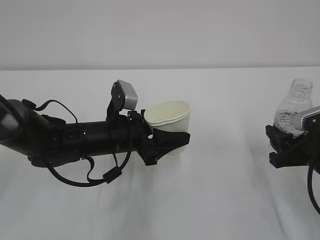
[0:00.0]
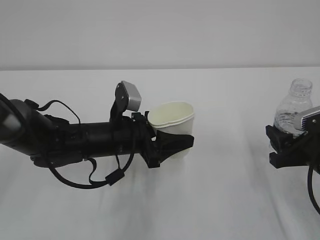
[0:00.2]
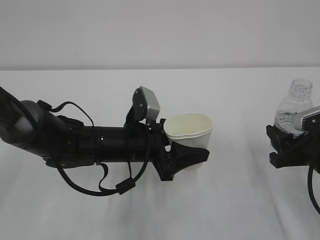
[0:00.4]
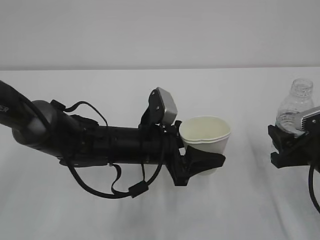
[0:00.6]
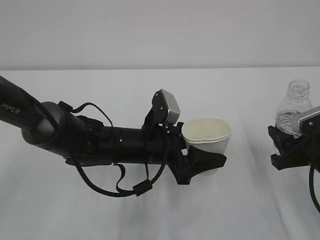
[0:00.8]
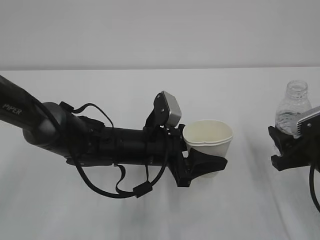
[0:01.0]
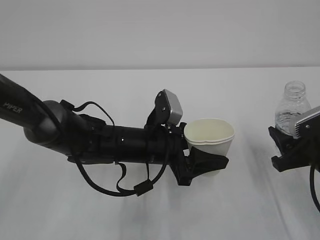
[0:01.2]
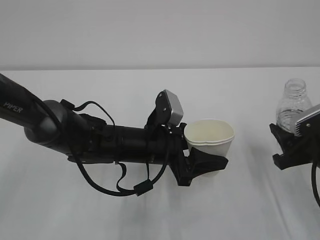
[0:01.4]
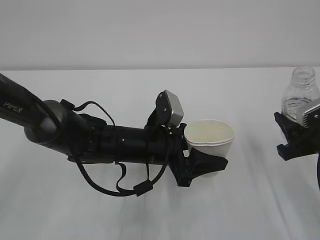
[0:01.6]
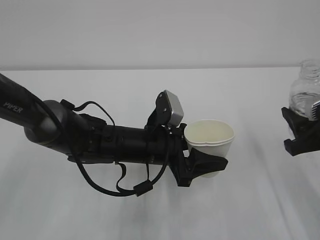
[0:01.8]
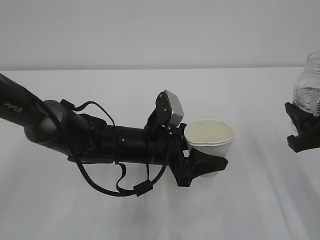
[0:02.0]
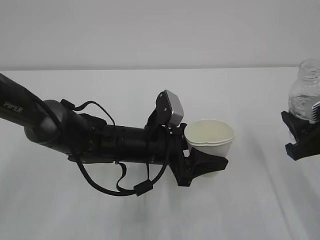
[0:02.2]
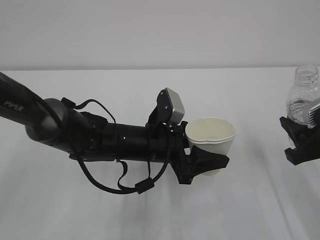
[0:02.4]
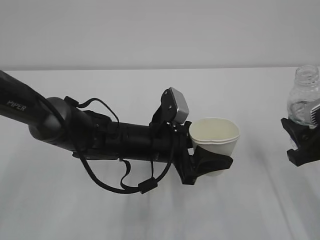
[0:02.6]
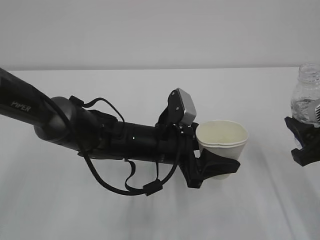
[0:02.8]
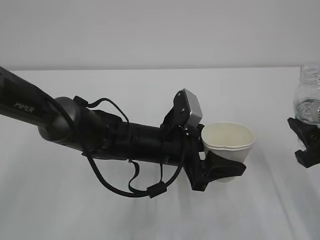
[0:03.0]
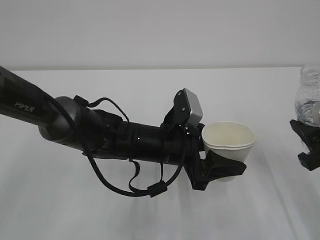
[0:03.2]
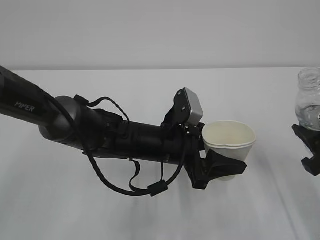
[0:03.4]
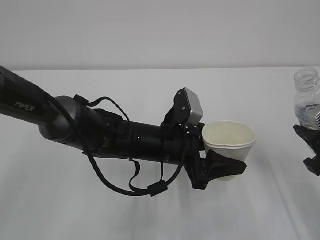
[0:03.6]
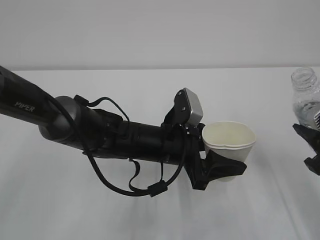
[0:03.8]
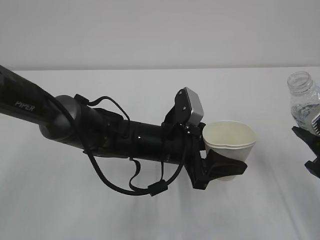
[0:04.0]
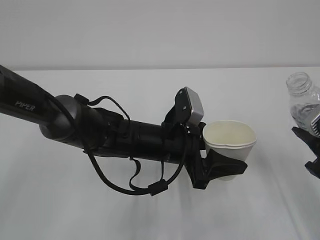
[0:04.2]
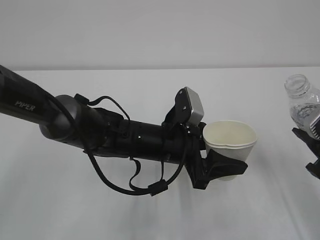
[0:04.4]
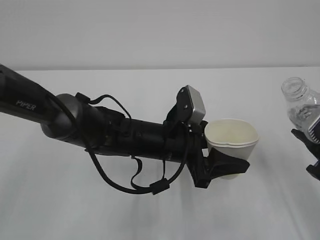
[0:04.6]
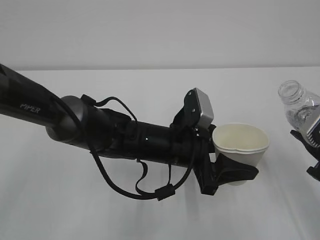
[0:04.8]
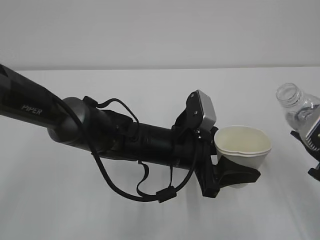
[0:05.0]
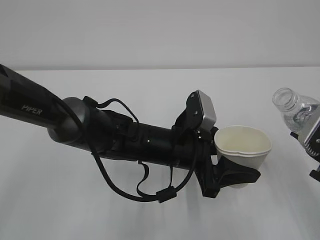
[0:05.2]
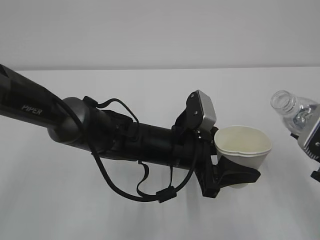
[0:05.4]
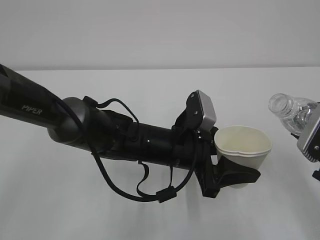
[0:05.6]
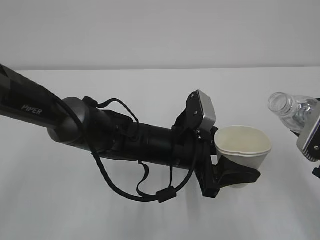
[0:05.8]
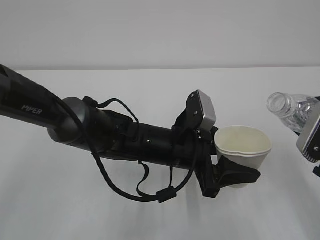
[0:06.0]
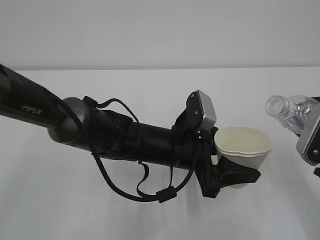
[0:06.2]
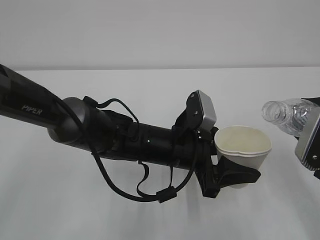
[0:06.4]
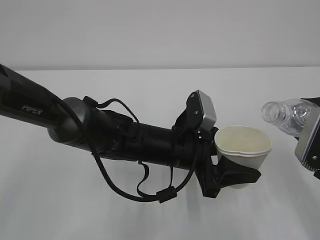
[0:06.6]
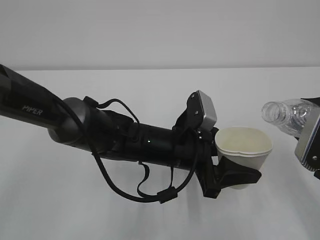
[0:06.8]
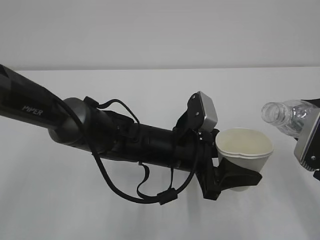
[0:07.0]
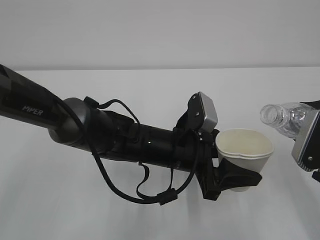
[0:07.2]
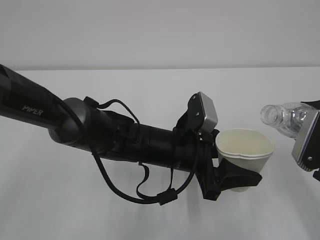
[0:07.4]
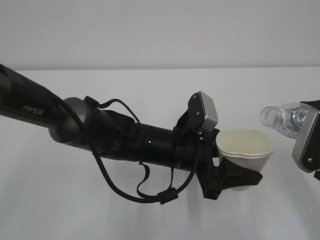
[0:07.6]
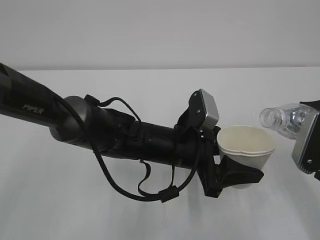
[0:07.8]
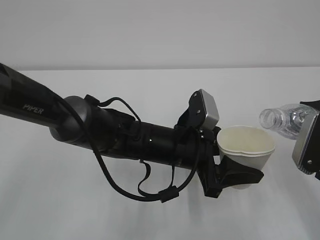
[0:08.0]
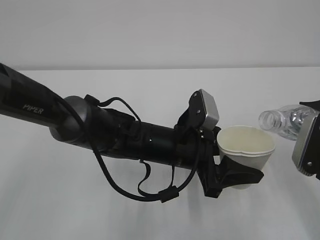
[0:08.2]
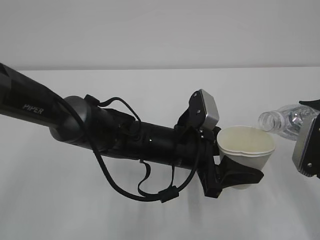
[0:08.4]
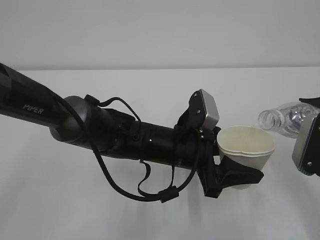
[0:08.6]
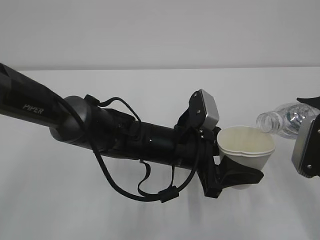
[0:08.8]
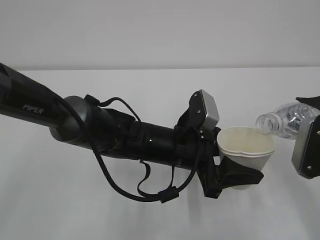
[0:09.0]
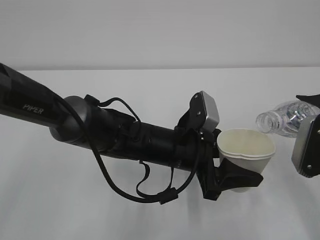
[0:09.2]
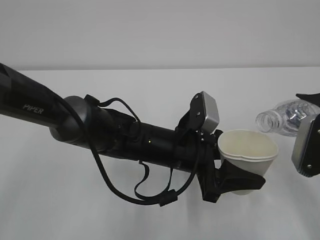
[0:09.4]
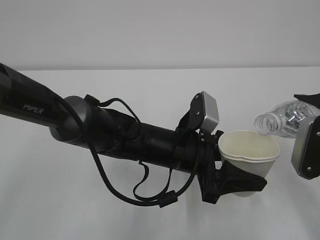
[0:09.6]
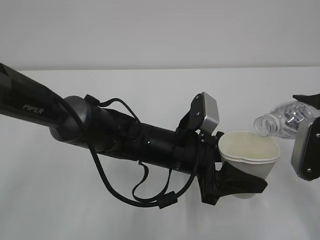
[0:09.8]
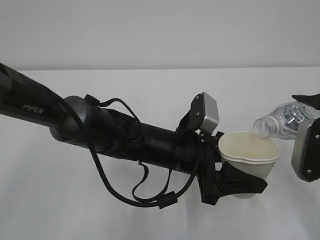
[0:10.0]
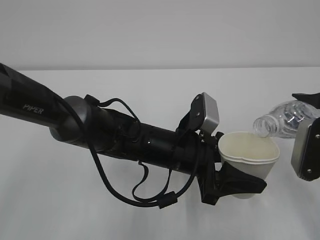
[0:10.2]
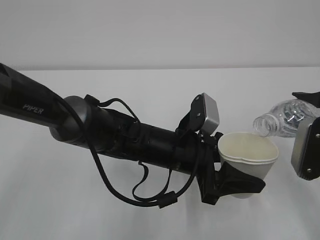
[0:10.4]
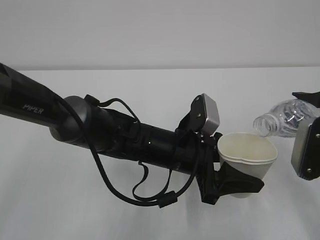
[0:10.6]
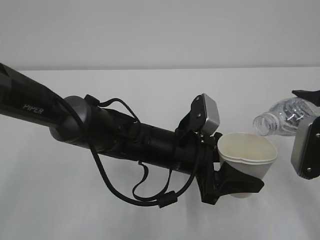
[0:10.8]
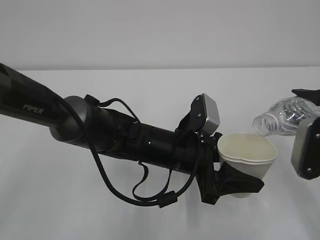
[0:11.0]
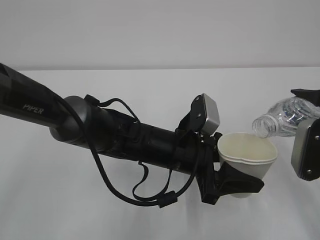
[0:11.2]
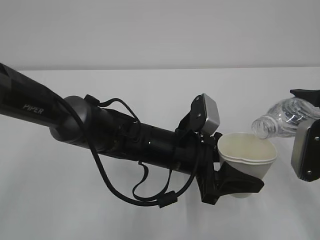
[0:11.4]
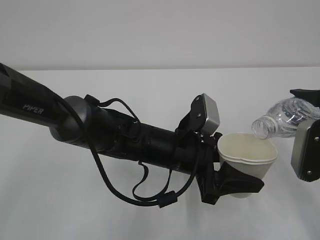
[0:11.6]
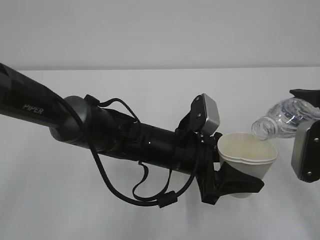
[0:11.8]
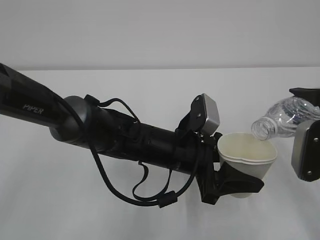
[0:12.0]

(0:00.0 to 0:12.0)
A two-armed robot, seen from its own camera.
0:00.0 - 0:01.6: The left gripper moves to the right, roughly 5 cm.
0:01.6 - 0:03.0: There are only small adjustments of the grippers.
0:03.0 - 0:04.4: The grippers move only a little.
0:06.0 - 0:09.0: The grippers move only a little.
0:09.0 - 0:12.0: The grippers make only small movements.

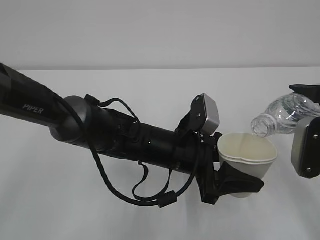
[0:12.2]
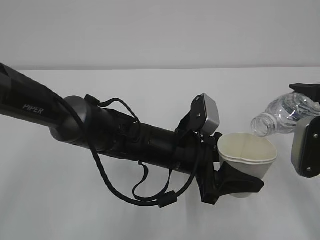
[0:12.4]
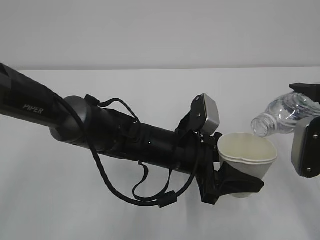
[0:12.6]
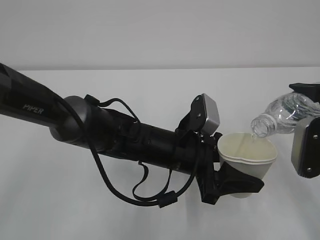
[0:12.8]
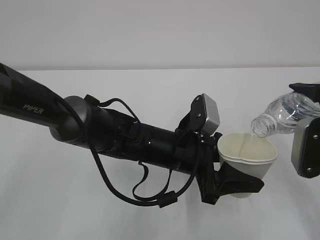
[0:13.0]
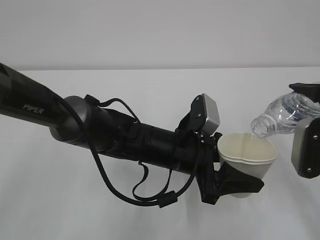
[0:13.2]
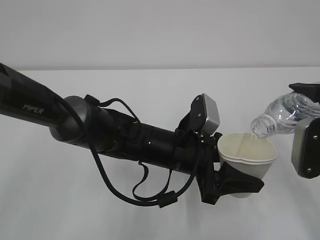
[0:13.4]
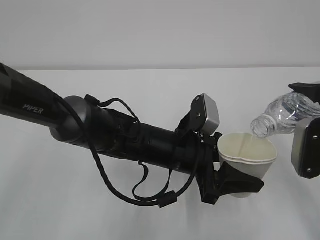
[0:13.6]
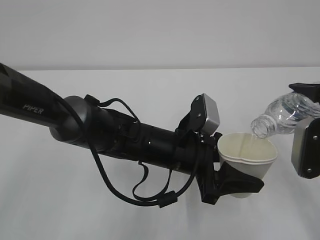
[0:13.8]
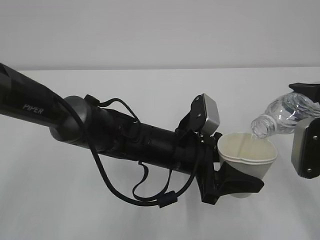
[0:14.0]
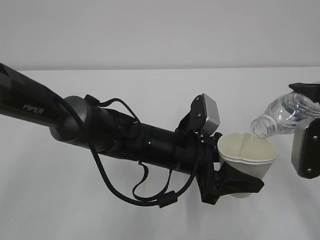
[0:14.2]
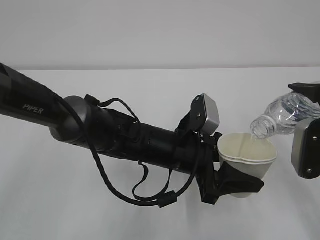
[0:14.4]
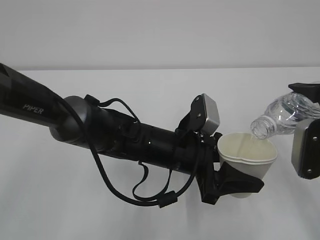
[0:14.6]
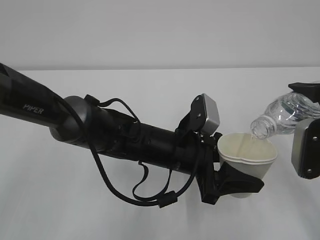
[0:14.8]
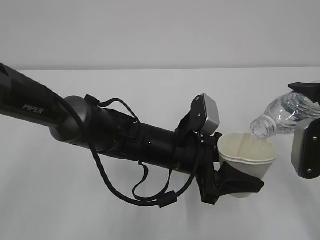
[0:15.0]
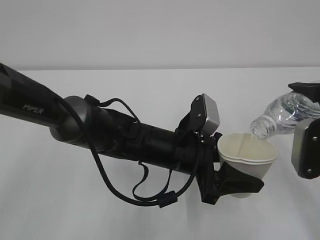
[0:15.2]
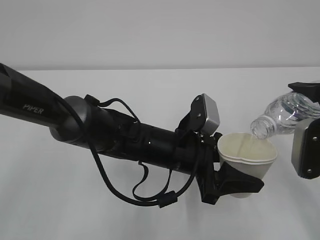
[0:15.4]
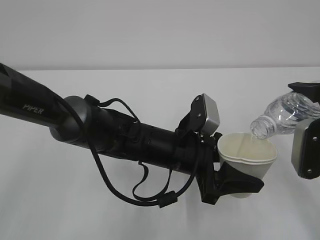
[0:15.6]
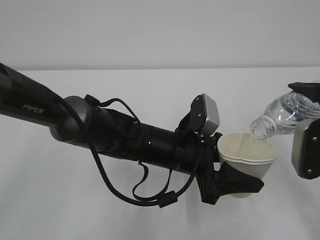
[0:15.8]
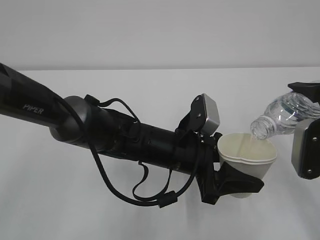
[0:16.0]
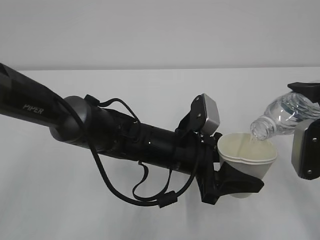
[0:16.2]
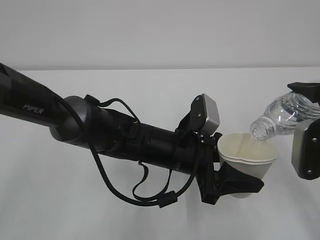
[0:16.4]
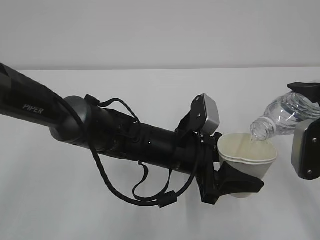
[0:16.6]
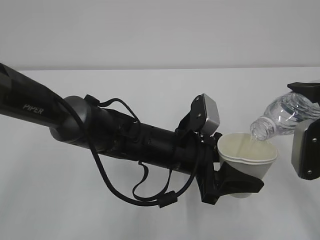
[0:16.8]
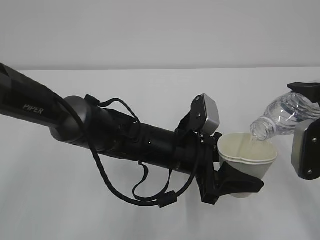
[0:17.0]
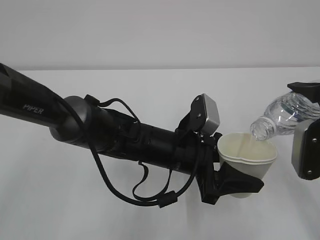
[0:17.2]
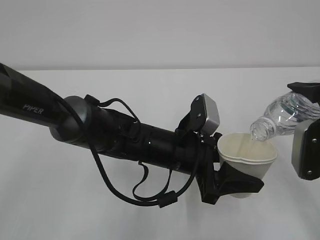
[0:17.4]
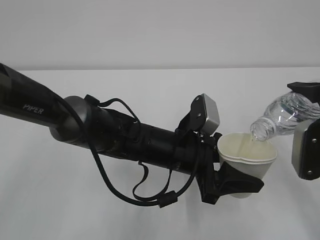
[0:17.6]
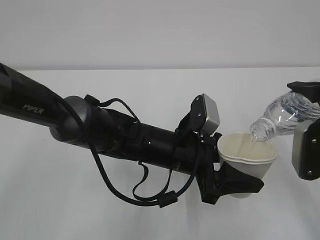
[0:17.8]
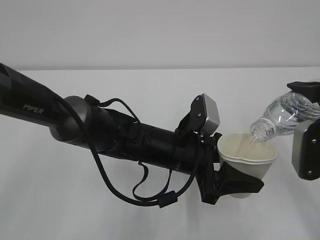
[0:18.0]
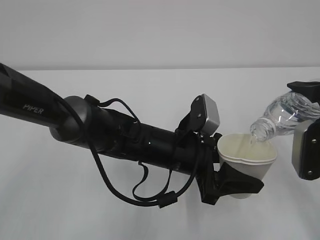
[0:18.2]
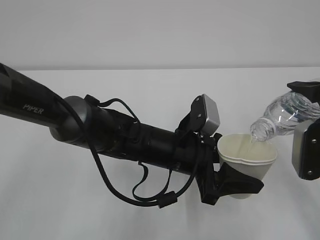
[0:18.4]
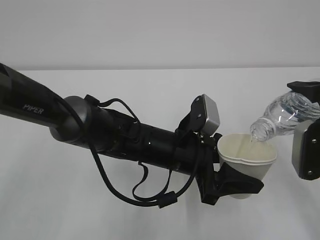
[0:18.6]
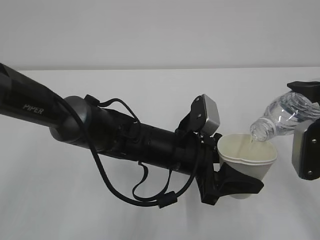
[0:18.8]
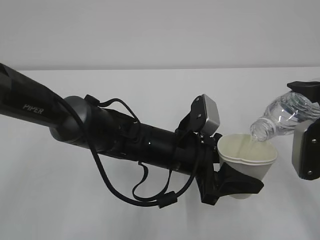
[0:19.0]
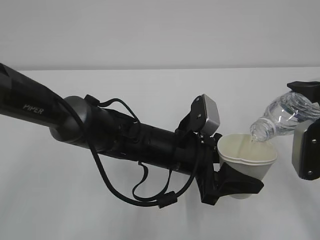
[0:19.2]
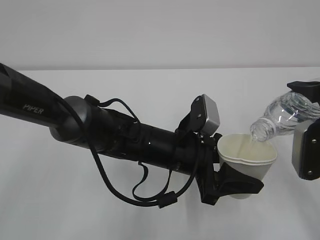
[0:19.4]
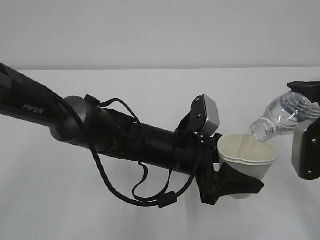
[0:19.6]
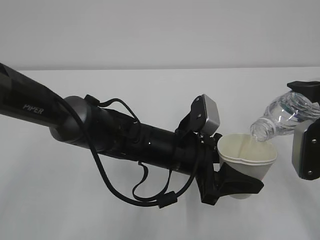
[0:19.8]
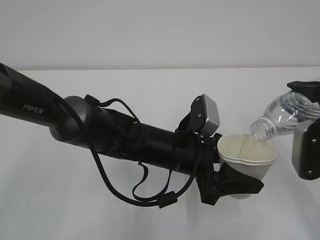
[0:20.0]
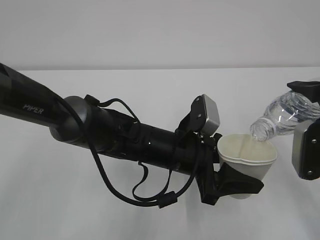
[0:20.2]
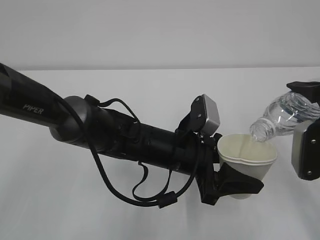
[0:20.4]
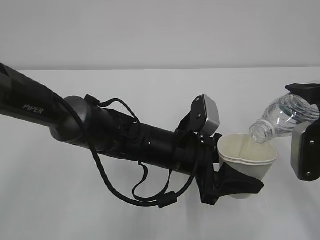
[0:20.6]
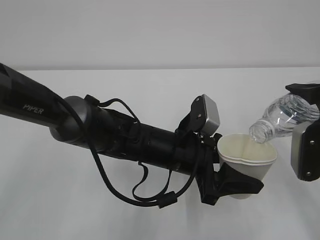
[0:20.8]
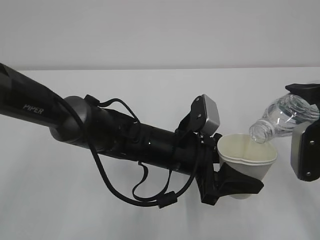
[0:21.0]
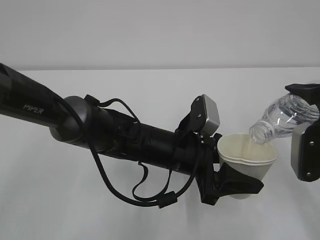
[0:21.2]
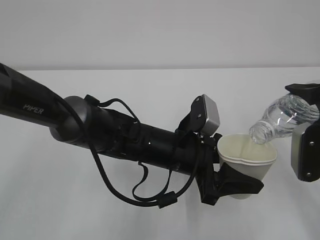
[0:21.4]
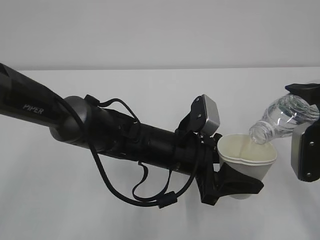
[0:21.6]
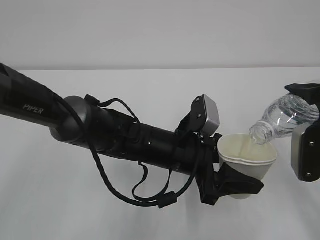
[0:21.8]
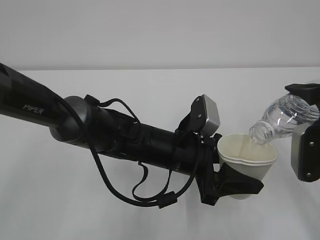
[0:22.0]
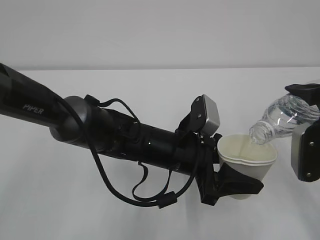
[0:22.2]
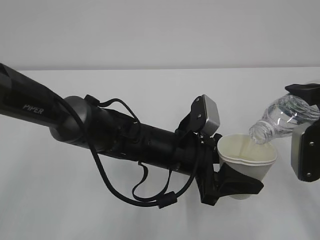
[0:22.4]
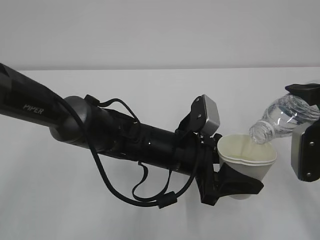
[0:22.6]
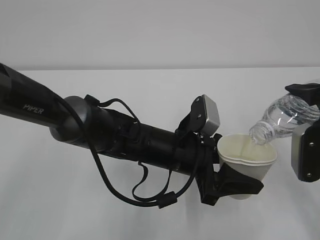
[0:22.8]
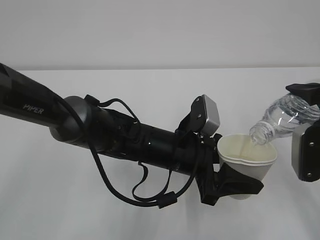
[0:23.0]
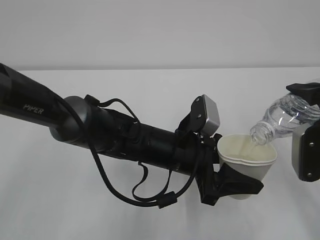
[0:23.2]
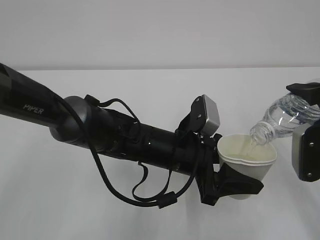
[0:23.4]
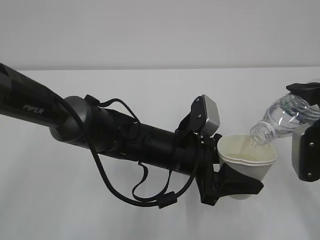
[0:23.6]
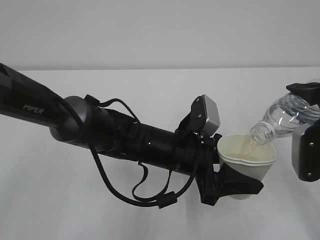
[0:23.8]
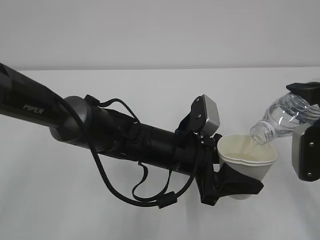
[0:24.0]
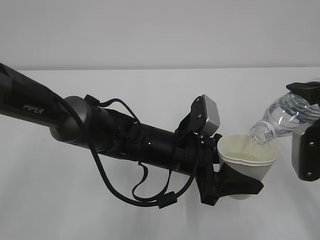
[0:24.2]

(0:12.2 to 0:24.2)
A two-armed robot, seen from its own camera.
0:12.2 - 0:16.6: The two grippers keep their place.
0:16.6 - 0:24.2: The two grippers keep their place.
